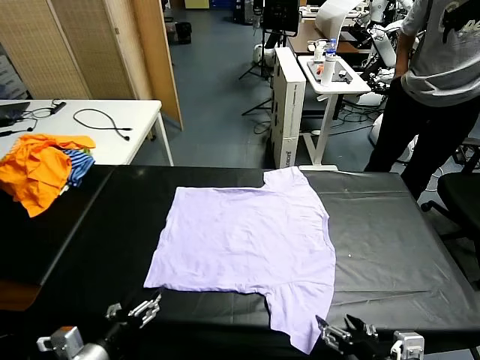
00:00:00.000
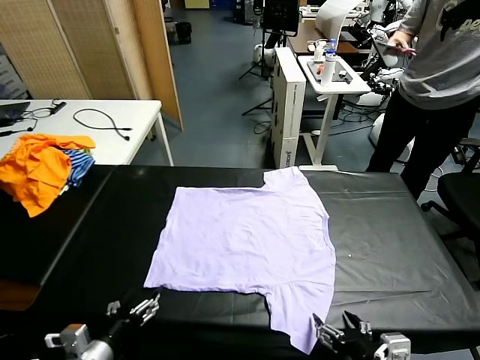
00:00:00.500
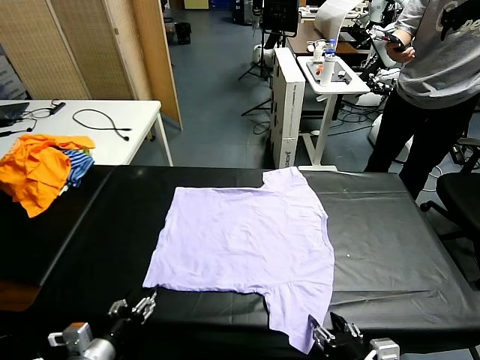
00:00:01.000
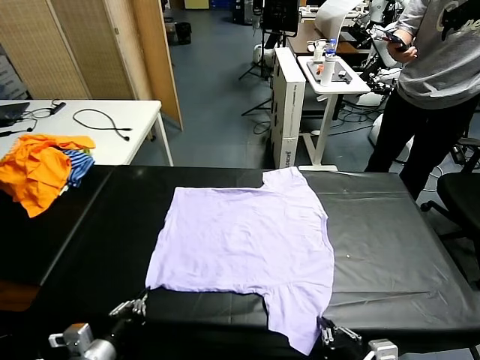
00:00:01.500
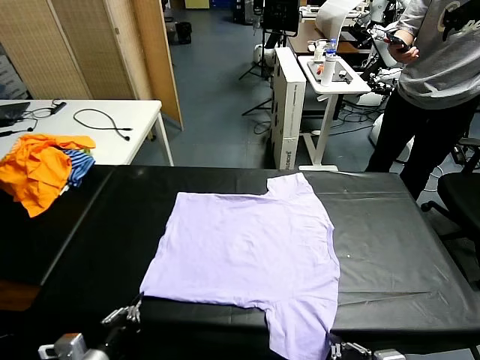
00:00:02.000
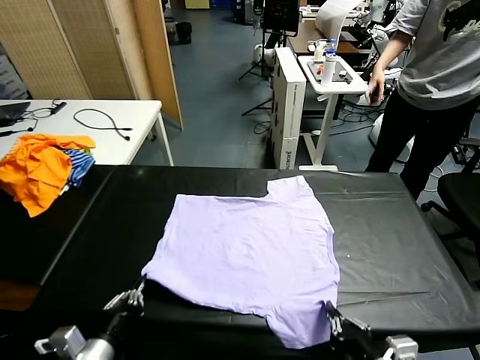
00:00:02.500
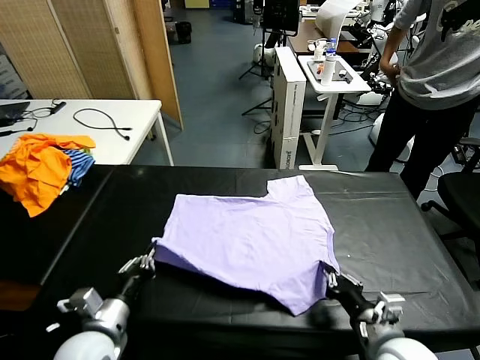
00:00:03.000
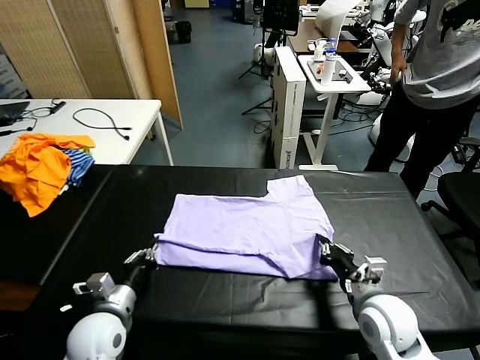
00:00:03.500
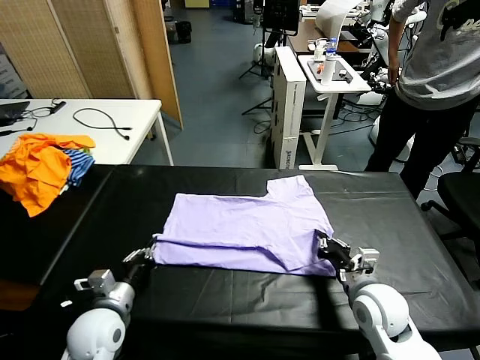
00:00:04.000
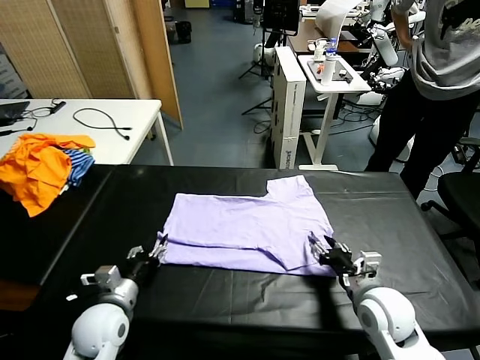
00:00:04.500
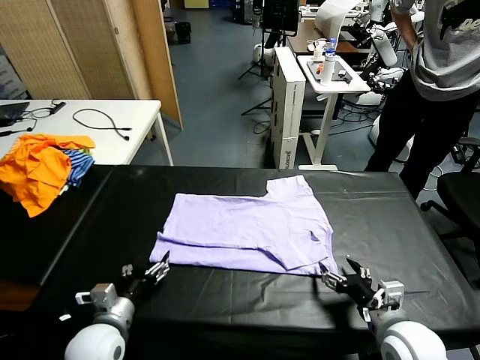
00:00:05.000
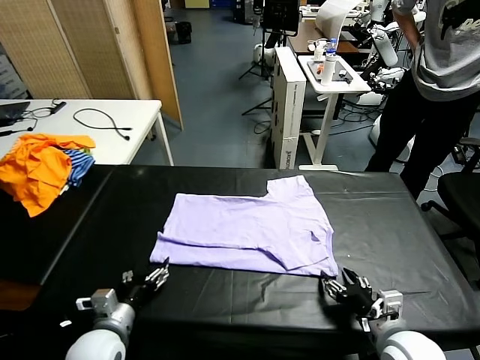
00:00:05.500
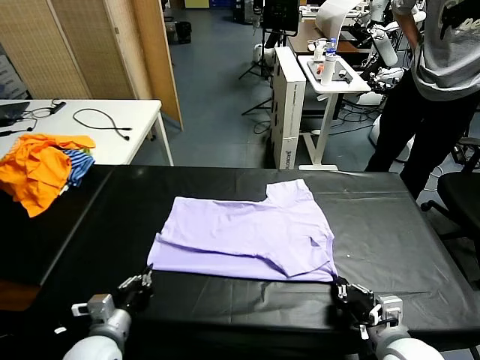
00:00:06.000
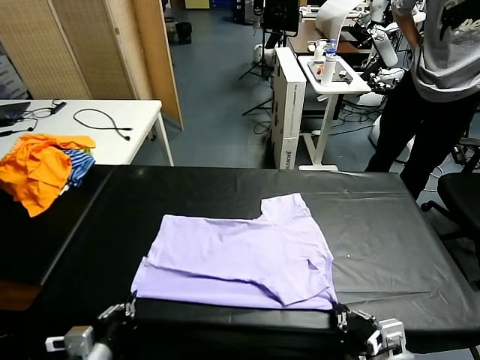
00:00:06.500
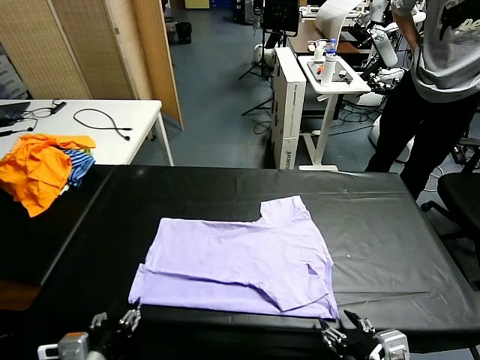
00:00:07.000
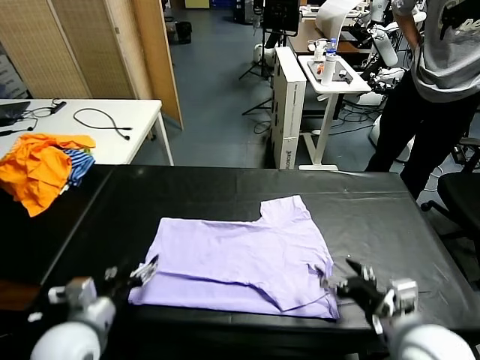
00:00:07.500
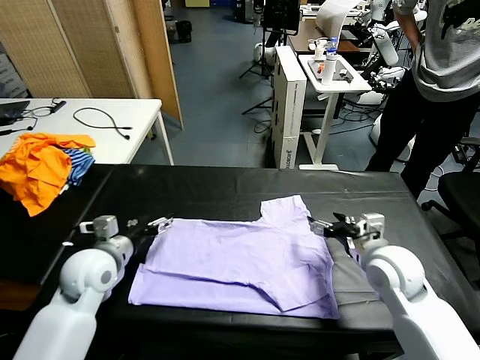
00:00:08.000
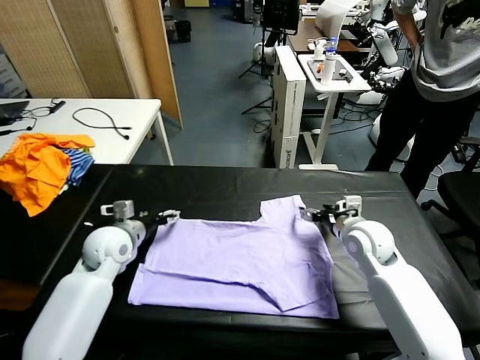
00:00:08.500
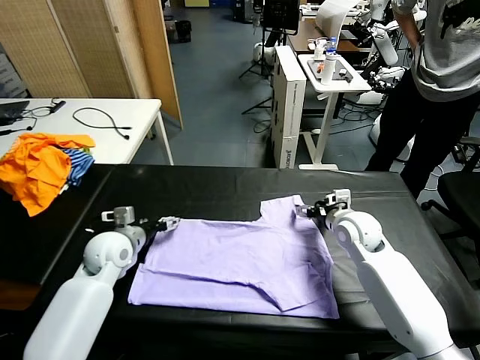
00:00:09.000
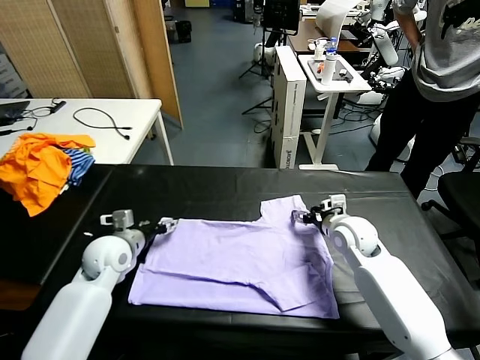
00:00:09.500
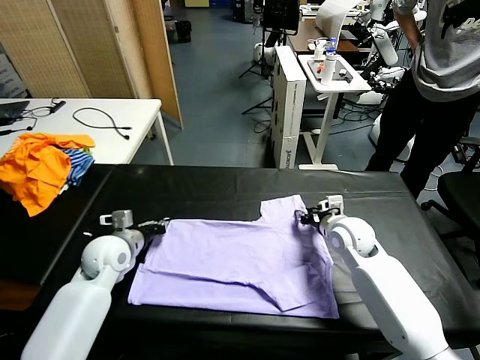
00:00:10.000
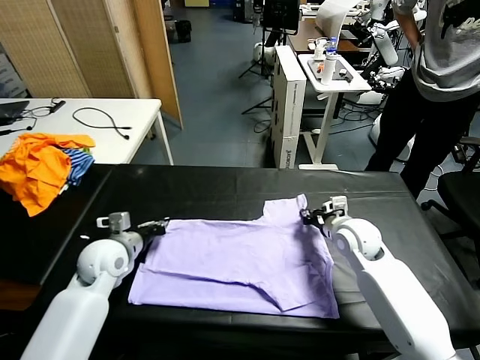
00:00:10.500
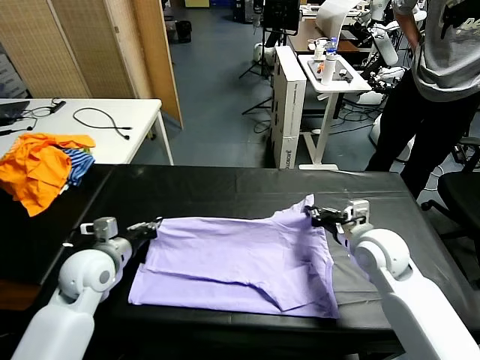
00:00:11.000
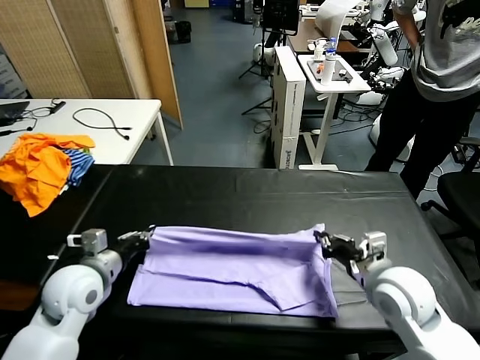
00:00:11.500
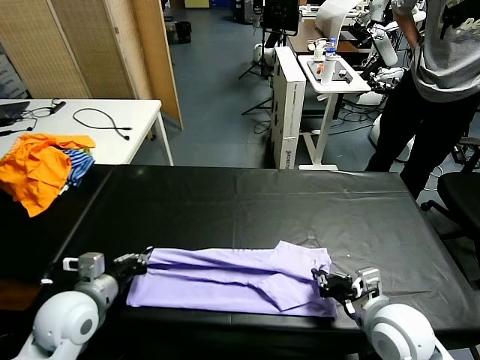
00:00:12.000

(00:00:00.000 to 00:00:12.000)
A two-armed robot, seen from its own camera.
Task of the whole recording: fold and organize the clothes.
Step, 00:00:00.000 - 00:00:01.500: use both grippers simultaneously to clamp the lower edge of the clothing fabric.
Step, 00:00:02.000 - 00:00:04.500: use both grippers to drag the lower edge of the fabric forward and fold it over the upper edge.
Step, 00:00:05.000 - 00:00:07.000: Drag the clothes downward with both gripper.
Step, 00:00:07.500 - 00:00:10.000: use both grippers simultaneously to clamp the upper edge of the clothing fabric.
00:00:02.000 - 00:00:04.000: The left gripper goes about 10 cm forward; the right gripper opens.
00:00:04.000 - 00:00:06.000: The right gripper heads backward, covering roughly 10 cm, and closes up. Meanwhile the left gripper opens, then closes once more.
00:00:06.000 - 00:00:08.000: The right gripper moves forward, roughly 30 cm, and opens. The left gripper goes about 15 cm upward and forward, and opens.
00:00:08.000 - 00:00:10.000: The left gripper goes some 10 cm forward, and closes, while the right gripper closes up.
00:00:10.000 - 00:00:12.000: The right gripper shifts some 20 cm backward. Meanwhile the left gripper travels backward by roughly 15 cm.

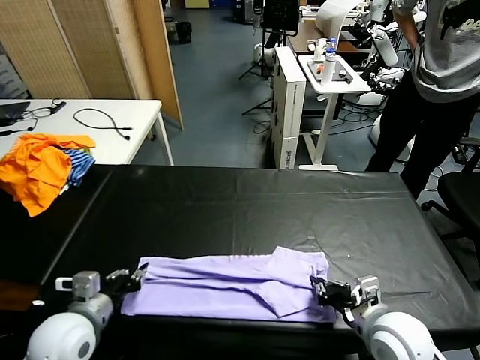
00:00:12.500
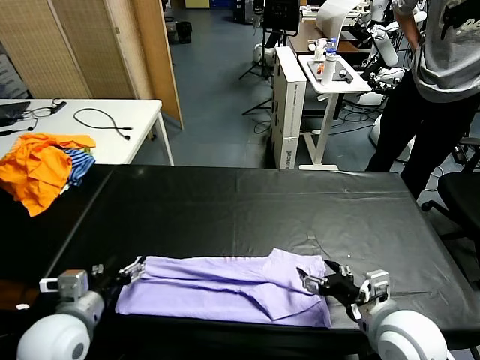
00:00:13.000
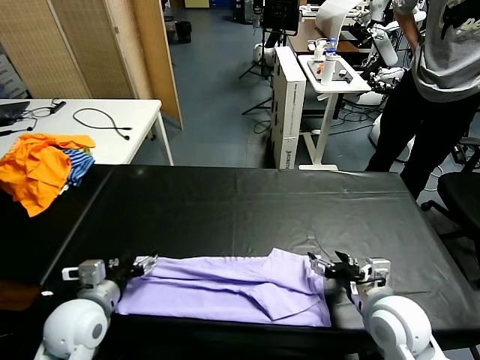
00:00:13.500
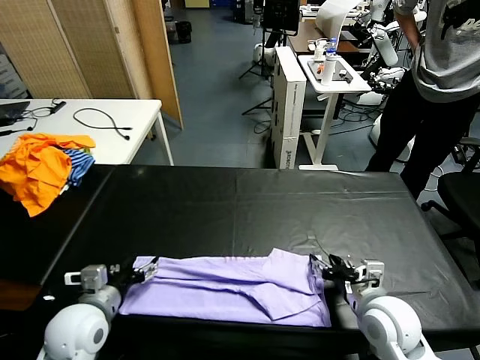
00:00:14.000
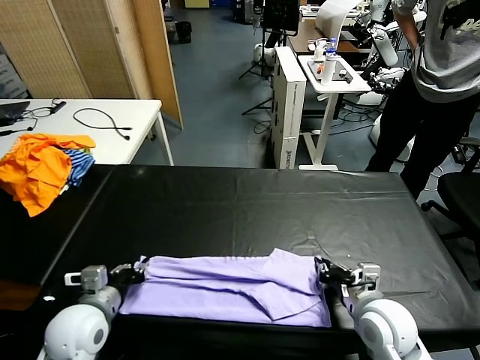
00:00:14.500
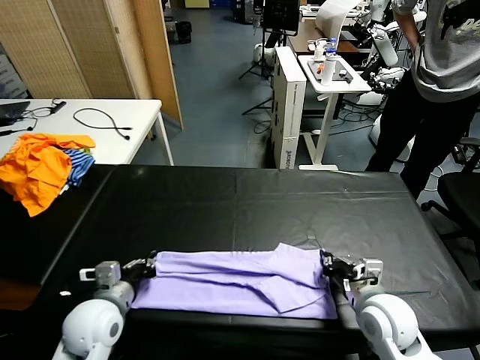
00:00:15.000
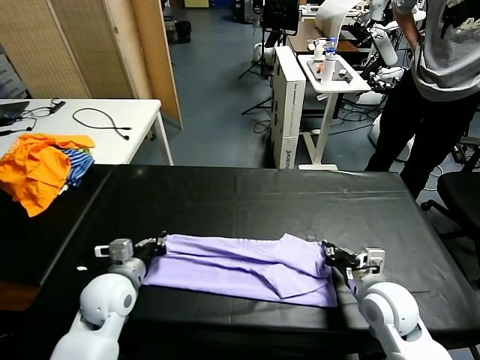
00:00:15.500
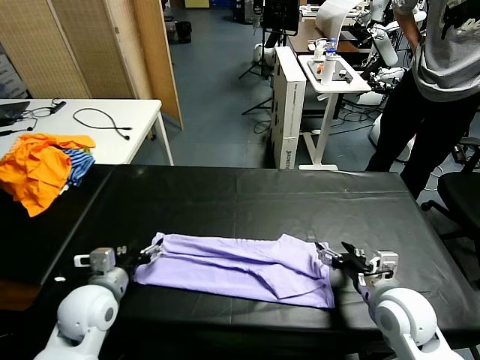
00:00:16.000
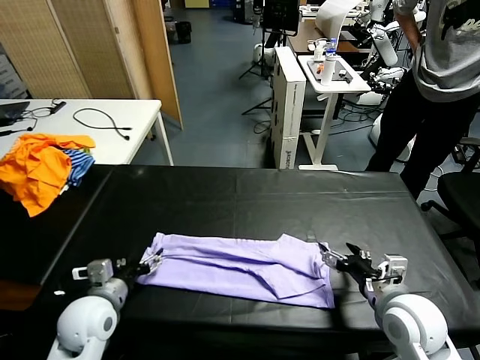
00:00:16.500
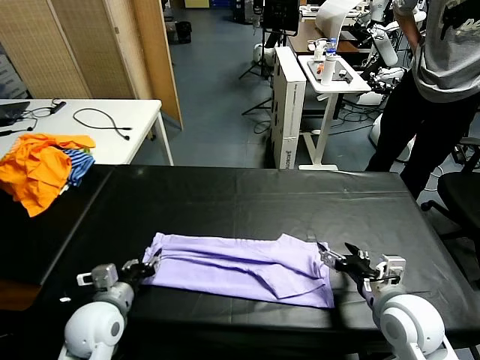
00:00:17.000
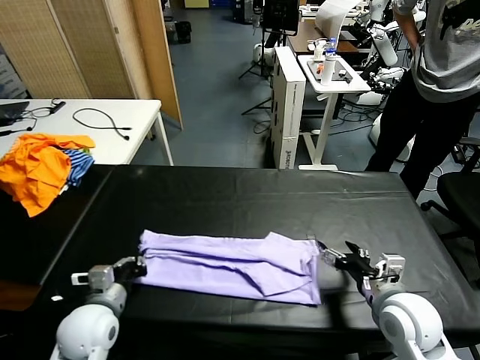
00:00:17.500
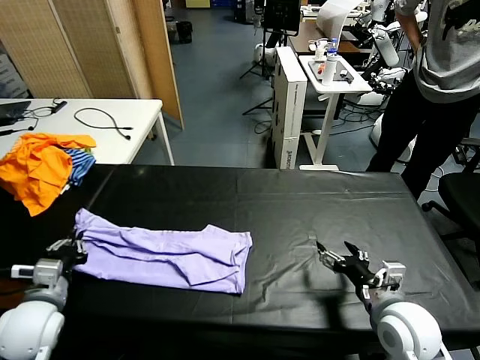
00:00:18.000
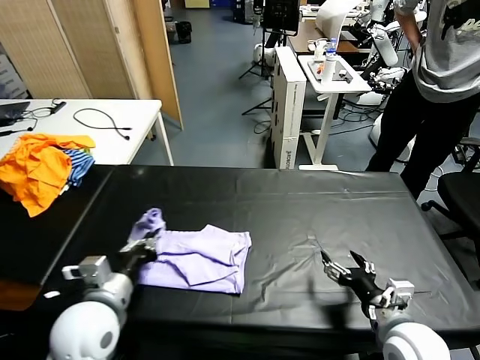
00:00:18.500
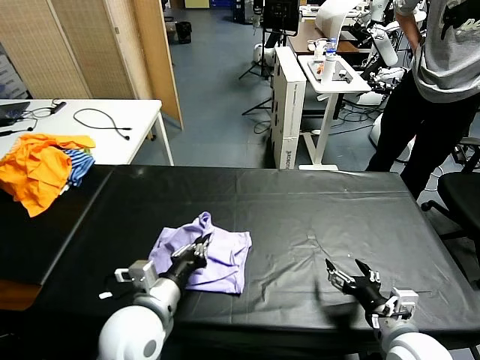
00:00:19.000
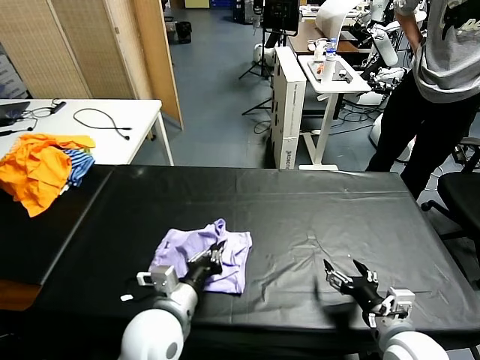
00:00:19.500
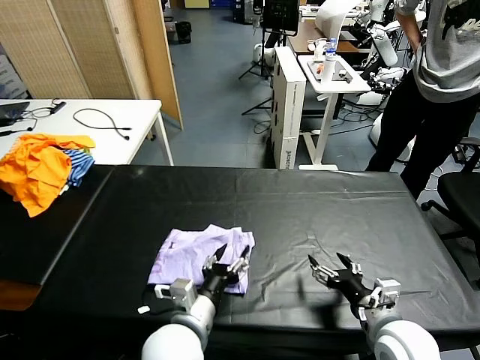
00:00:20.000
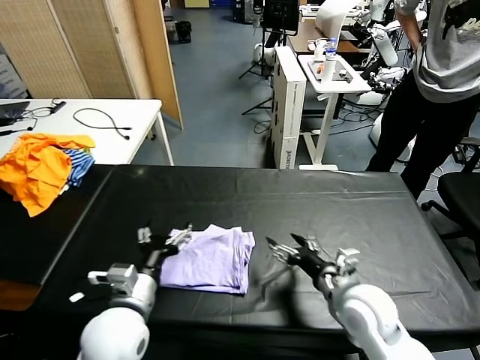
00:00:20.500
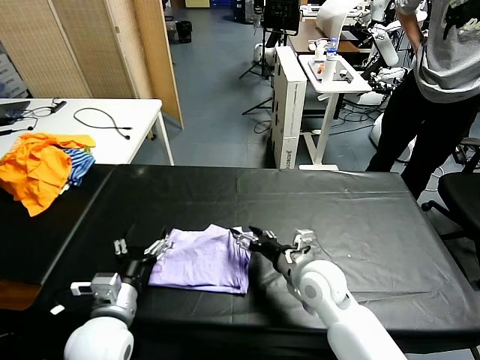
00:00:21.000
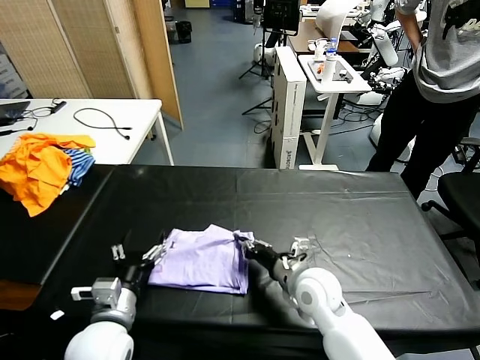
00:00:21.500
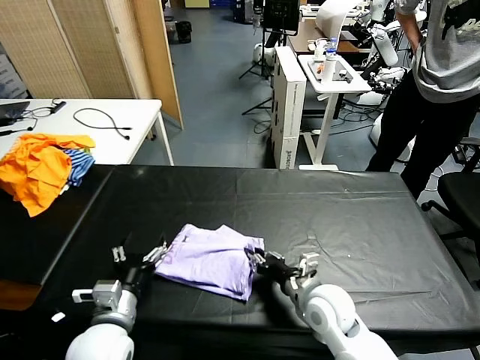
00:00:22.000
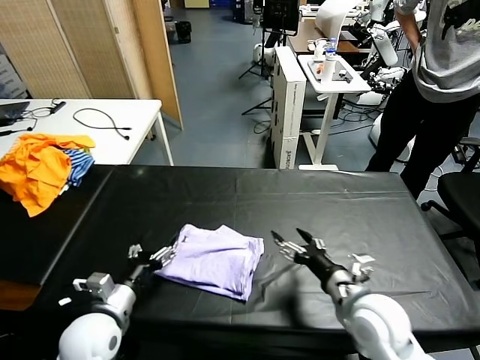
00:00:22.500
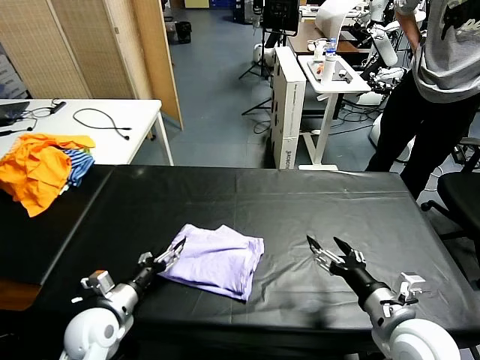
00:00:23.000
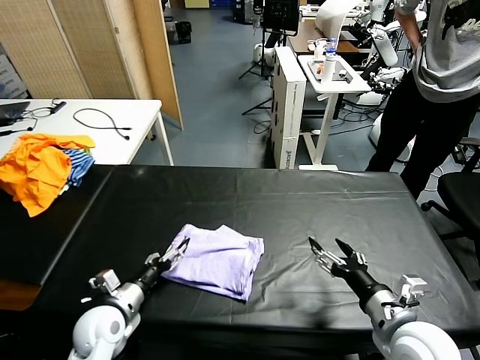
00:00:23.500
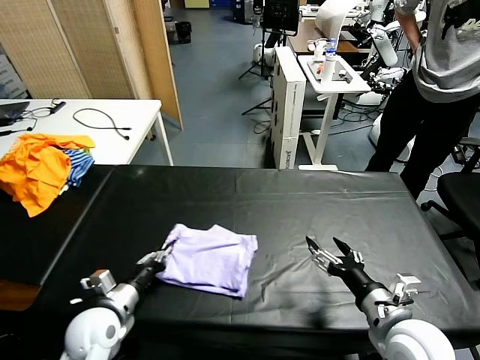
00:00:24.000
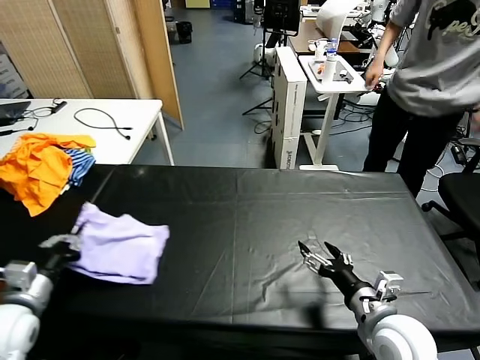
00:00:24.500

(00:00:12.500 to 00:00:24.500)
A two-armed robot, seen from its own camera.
Task of the whole recording: fold and organize the clothes.
Step, 00:00:12.500 - 00:00:15.500: use both grippers to drag the upper edge of the fabric backward and fold it over the lower edge.
Step, 00:00:16.000 - 00:00:17.000: use the left gripper to clamp the left edge of the fabric.
Step, 00:00:17.500 - 00:00:22.000: use the left gripper to drag the left edge of the fabric to the left and folds it over the right edge.
00:00:12.500 - 00:00:14.500: The left gripper opens up. The right gripper heads downward, covering about 5 cm, and closes.
00:00:14.500 - 00:00:16.500: The right gripper opens, while the left gripper opens up.
00:00:16.500 - 00:00:18.500: The right gripper heads backward, covering about 5 cm. Meanwhile the left gripper travels upward by about 5 cm, travels to the left and back again, approximately 5 cm each way, and closes up.
00:00:18.500 - 00:00:20.500: The right gripper moves forward and to the left, about 15 cm, while the left gripper shifts some 10 cm to the right, and opens up.
00:00:20.500 - 00:00:22.500: The left gripper travels to the left and downward by some 10 cm. The right gripper goes about 15 cm backward and to the right, and closes, then opens again.
00:00:22.500 - 00:00:24.500: The left gripper travels to the left by about 10 cm, and closes.

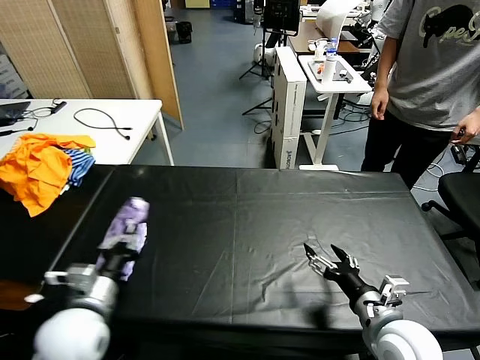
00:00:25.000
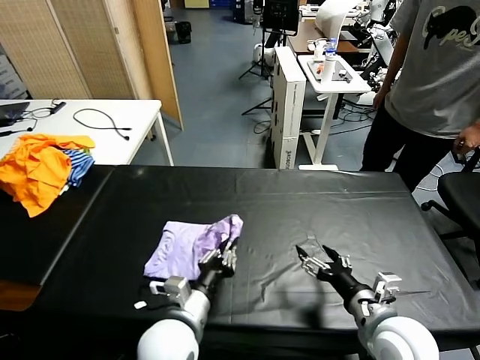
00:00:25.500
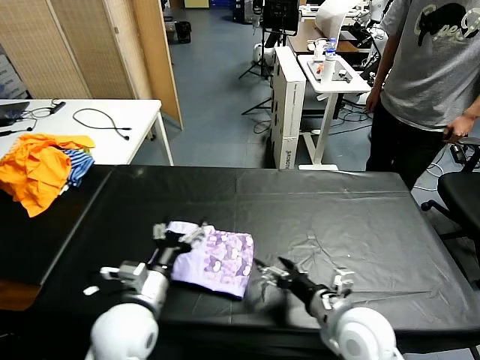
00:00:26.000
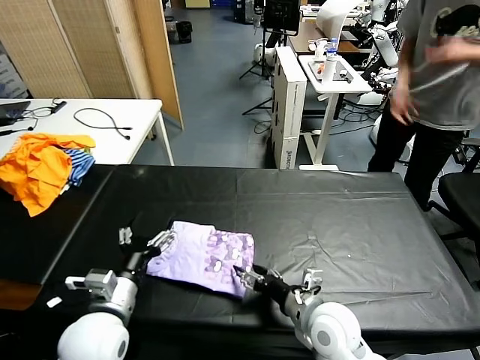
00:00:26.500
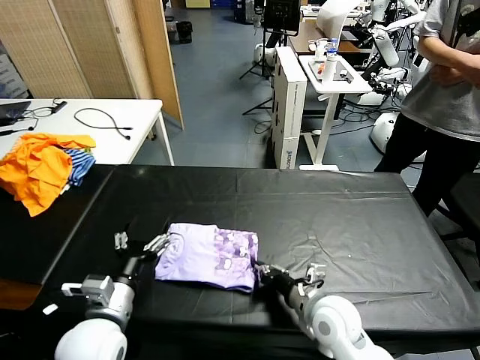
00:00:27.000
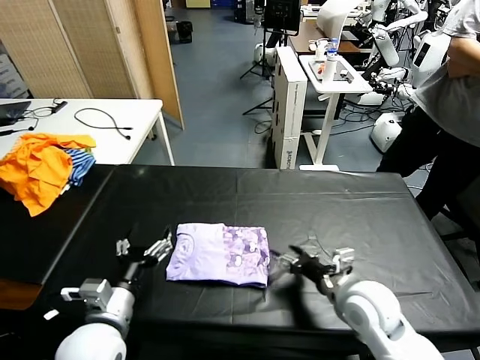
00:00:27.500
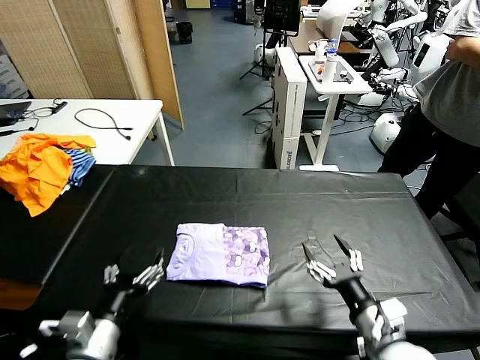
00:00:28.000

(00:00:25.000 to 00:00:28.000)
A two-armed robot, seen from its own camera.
Task of the whole recording: fold and organize the clothes.
Step, 00:00:26.000 - 00:00:27.000: Drag the clothes to the center of the table.
00:00:25.000 - 00:00:26.500: The left gripper goes approximately 5 cm to the right, and opens. The right gripper heads to the left and forward, covering roughly 10 cm.
00:00:26.500 - 00:00:28.000: The left gripper moves backward, approximately 5 cm. Meanwhile the right gripper heads to the right and backward, covering roughly 10 cm, and closes and opens again.
